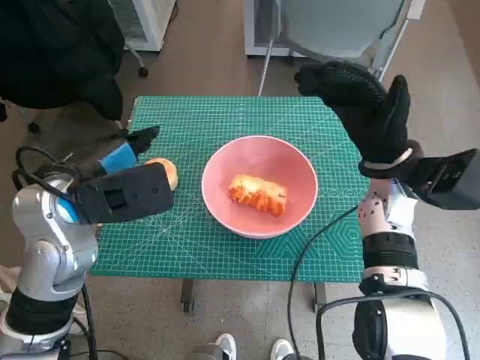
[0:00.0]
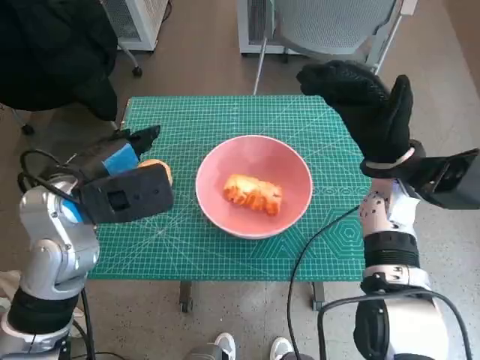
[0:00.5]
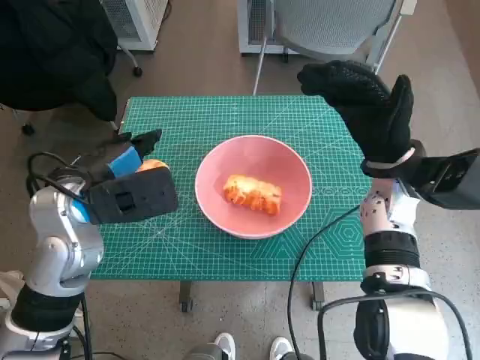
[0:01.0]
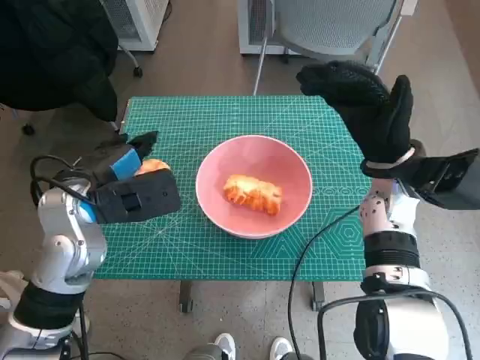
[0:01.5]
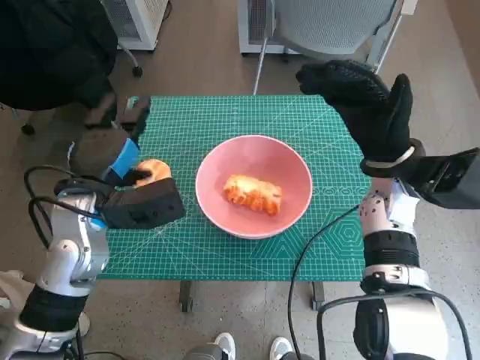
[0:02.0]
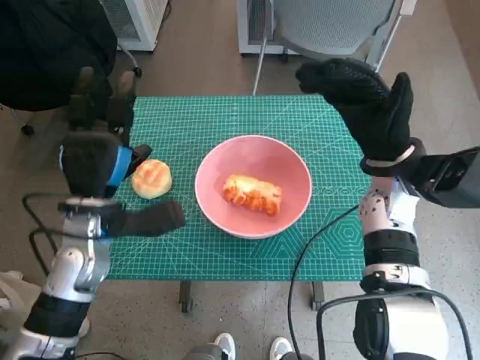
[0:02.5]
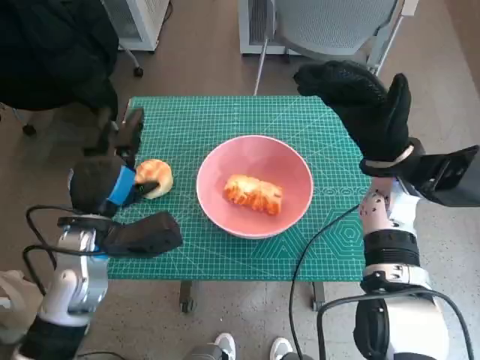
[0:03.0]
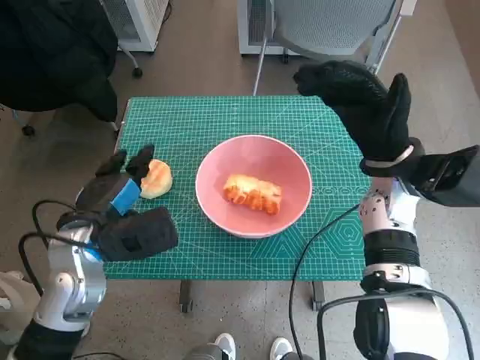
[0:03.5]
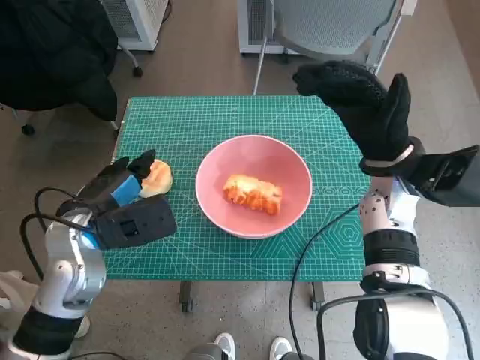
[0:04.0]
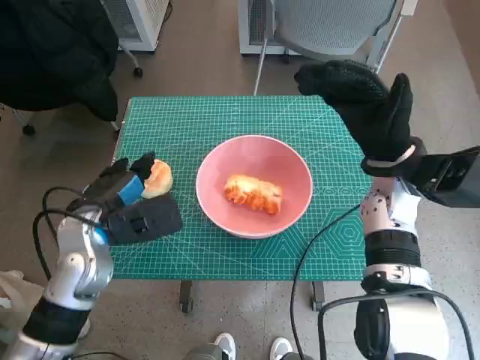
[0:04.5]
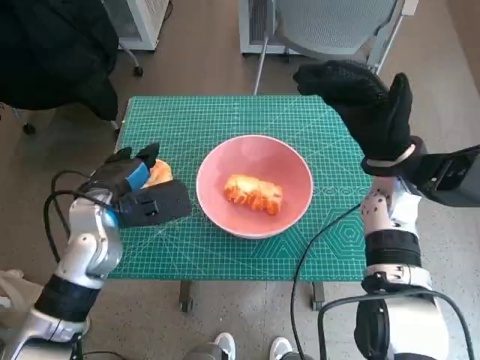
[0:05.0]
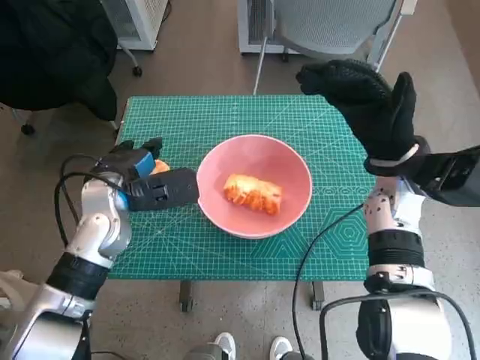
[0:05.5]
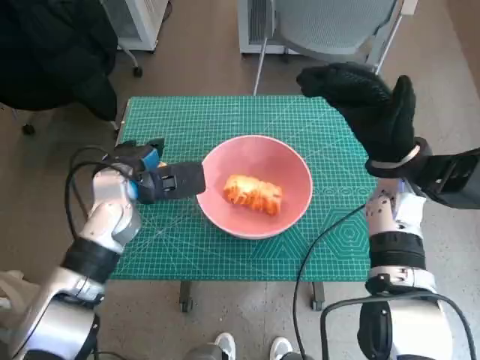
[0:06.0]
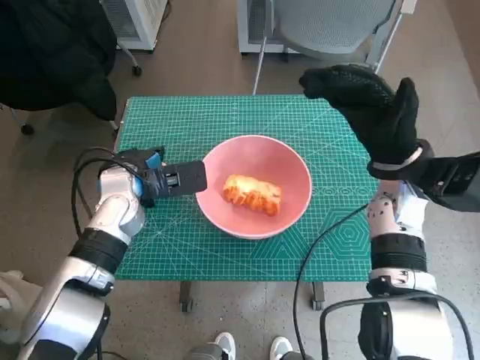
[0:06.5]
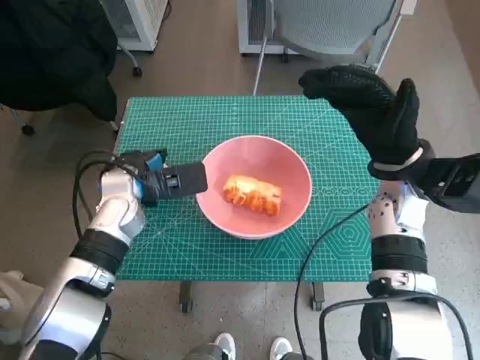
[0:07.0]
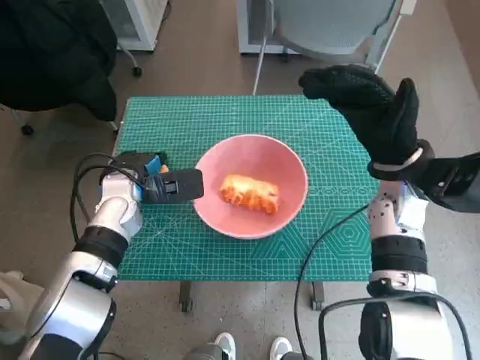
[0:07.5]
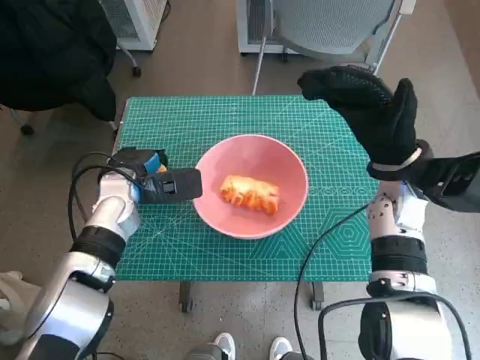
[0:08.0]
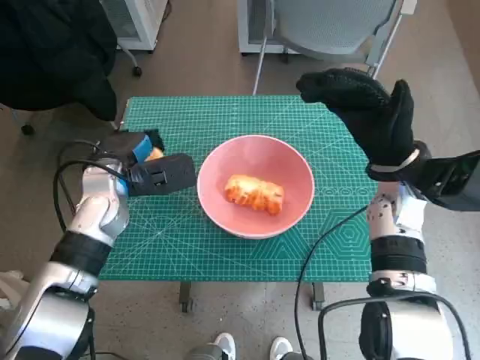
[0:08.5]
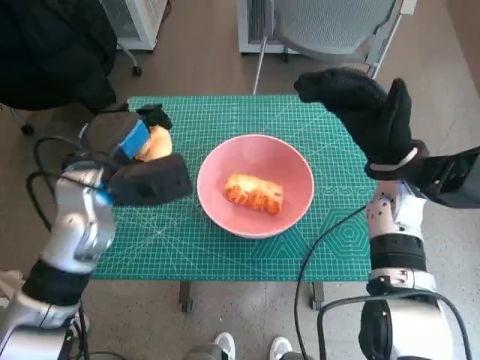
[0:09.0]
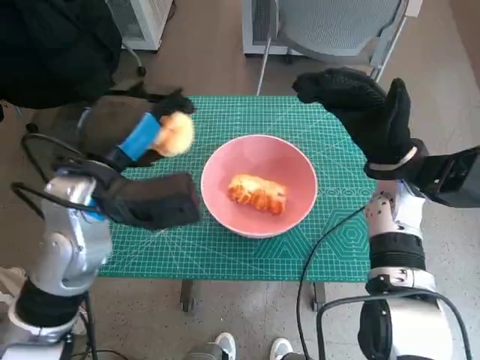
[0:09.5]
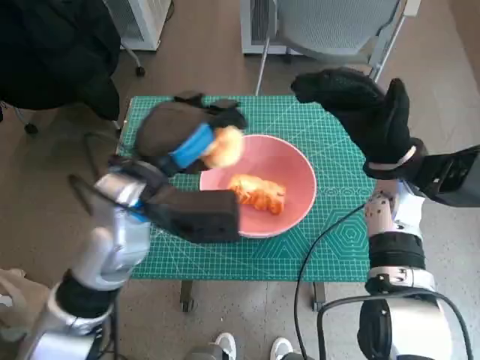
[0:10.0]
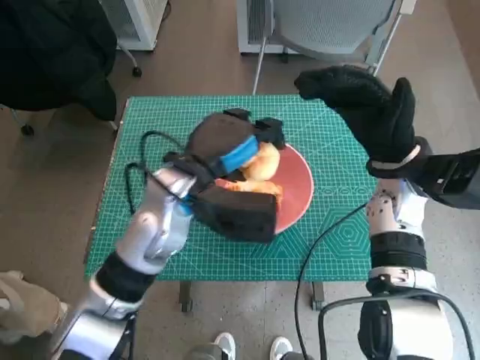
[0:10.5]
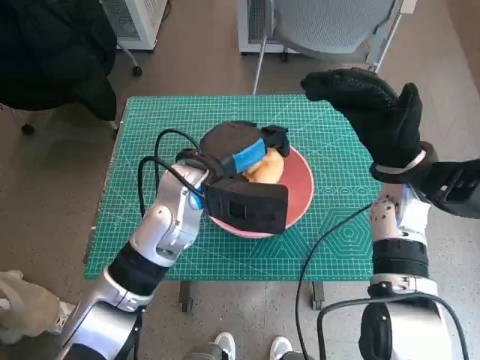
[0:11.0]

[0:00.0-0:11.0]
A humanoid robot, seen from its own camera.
Step, 0:00.0 to 0:07.5: Grasp the round bread with left hand.
0:00.0 to 0:02.0: The left hand shifts about 5 cm downward.
0:03.5 to 0:05.5: The left hand goes approximately 5 cm forward.
0:05.5 to 0:07.5: The hands move only a little.
0:07.5 to 0:09.0: The left hand travels upward by approximately 10 cm.
0:09.0 to 0:11.0: The left hand moves to the right, some 10 cm.

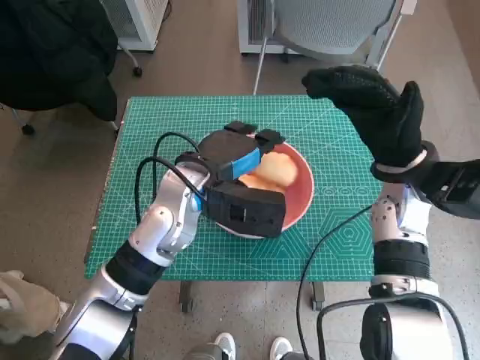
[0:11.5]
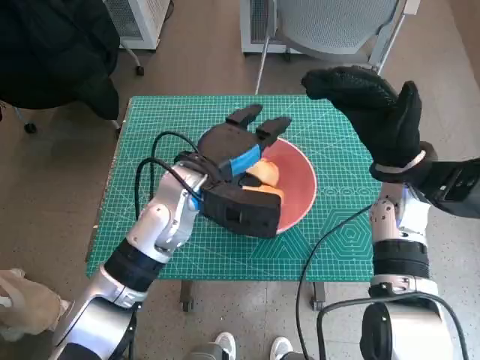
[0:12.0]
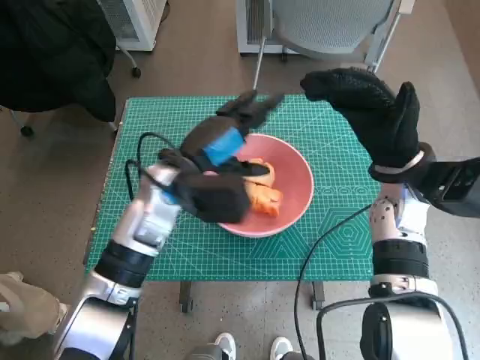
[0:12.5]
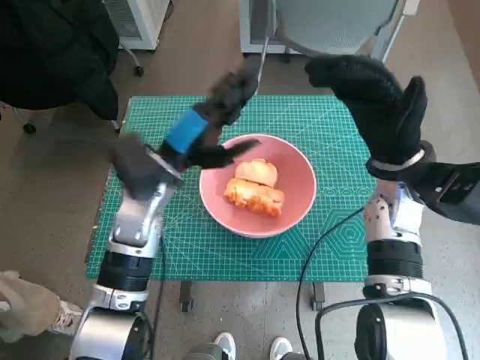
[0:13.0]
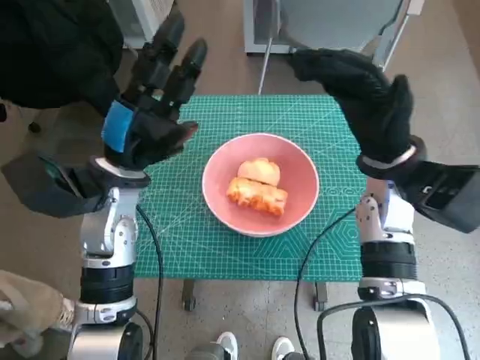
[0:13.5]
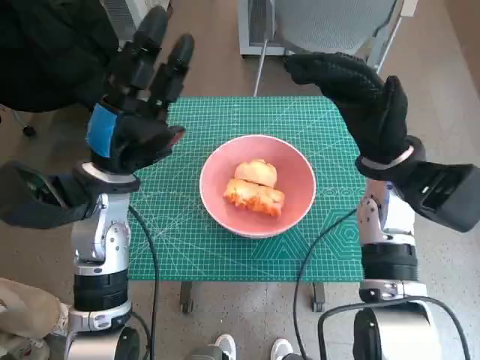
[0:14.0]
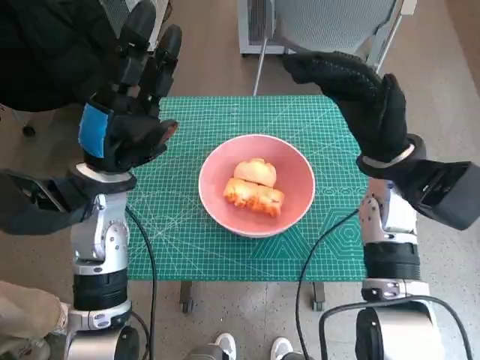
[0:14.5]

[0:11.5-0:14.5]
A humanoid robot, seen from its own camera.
0:11.5 to 0:13.0: The left hand moves to the left, approximately 5 cm.
0:13.0 to 0:14.5: The left hand shifts roughly 5 cm to the left.
